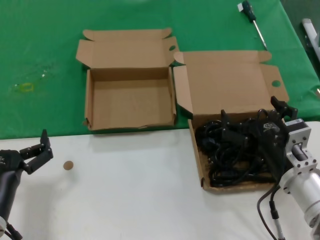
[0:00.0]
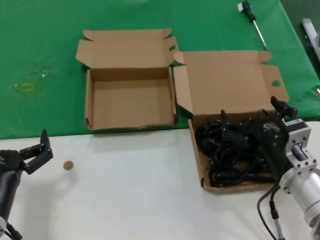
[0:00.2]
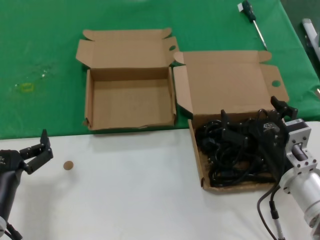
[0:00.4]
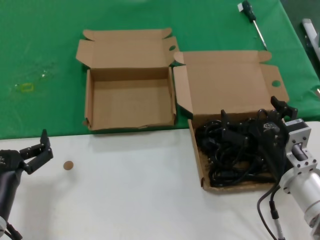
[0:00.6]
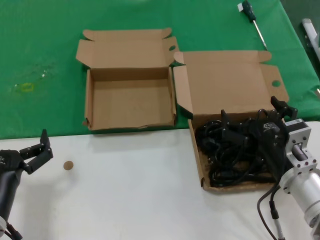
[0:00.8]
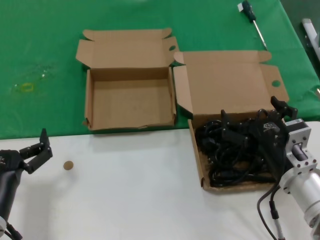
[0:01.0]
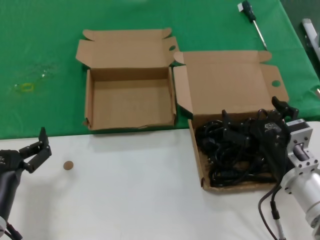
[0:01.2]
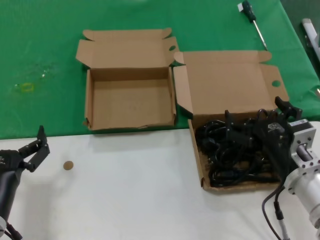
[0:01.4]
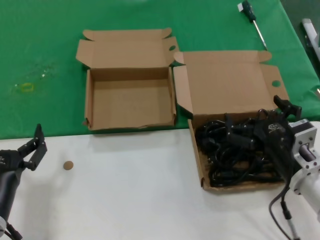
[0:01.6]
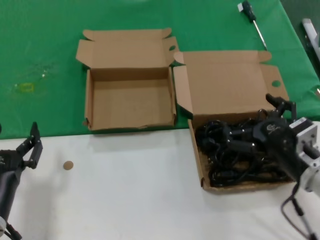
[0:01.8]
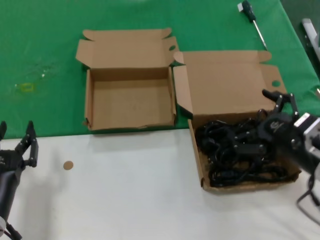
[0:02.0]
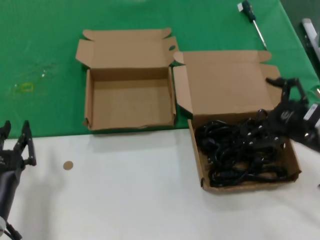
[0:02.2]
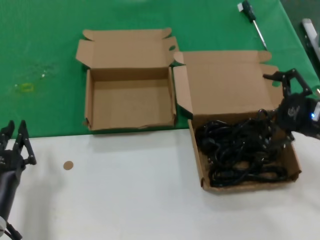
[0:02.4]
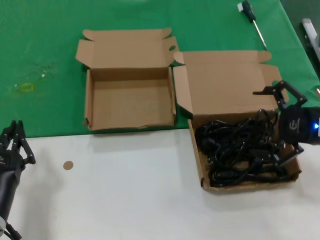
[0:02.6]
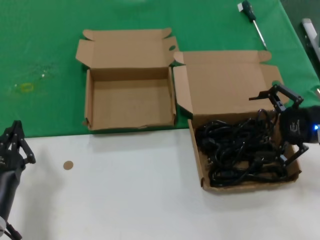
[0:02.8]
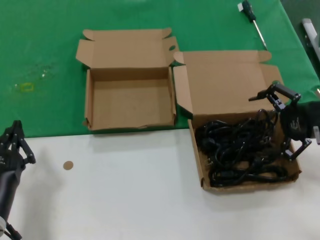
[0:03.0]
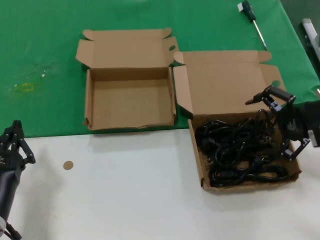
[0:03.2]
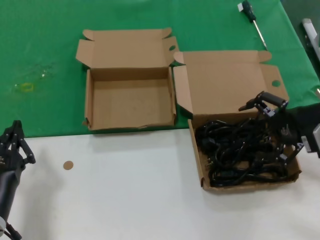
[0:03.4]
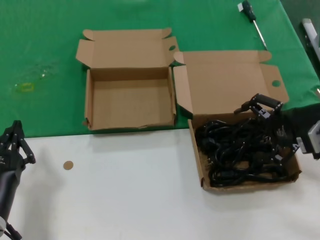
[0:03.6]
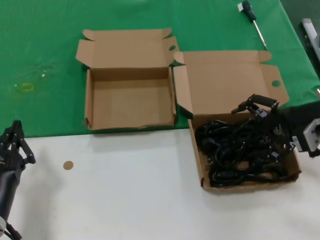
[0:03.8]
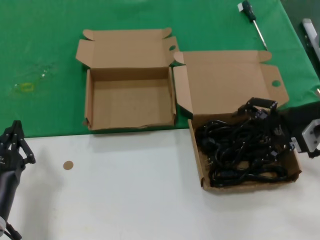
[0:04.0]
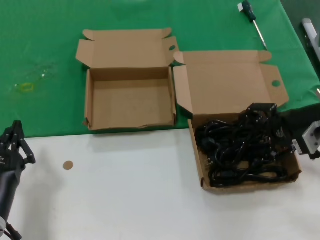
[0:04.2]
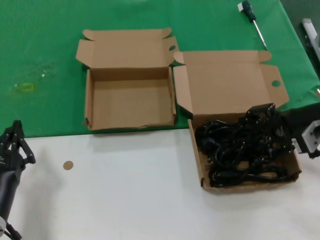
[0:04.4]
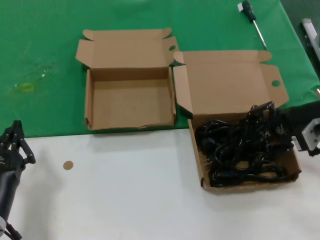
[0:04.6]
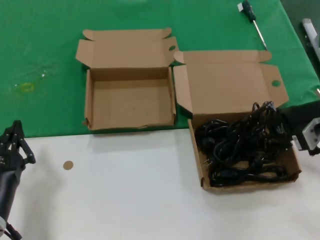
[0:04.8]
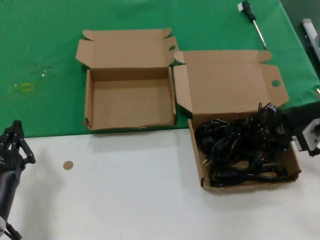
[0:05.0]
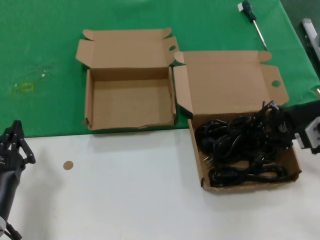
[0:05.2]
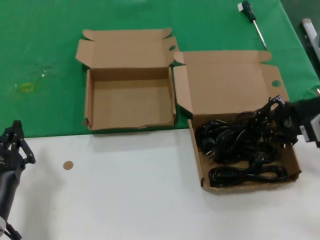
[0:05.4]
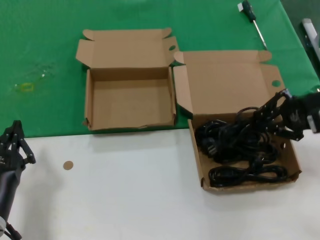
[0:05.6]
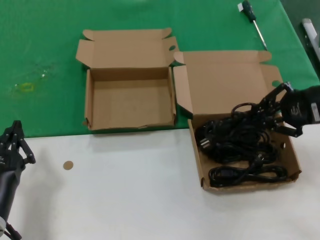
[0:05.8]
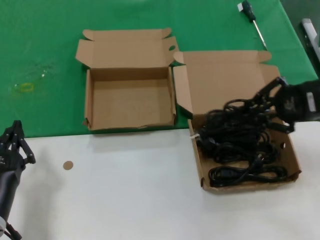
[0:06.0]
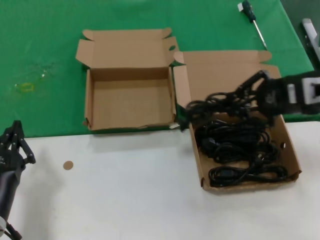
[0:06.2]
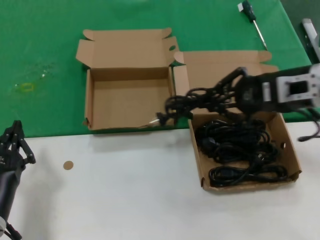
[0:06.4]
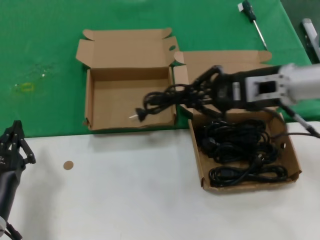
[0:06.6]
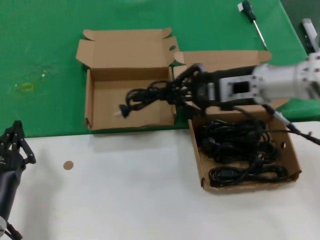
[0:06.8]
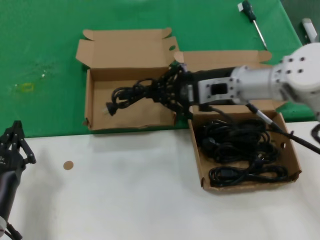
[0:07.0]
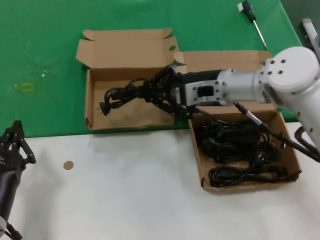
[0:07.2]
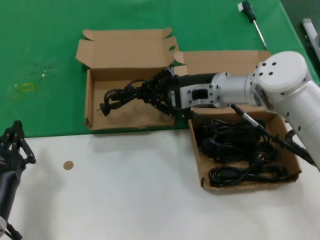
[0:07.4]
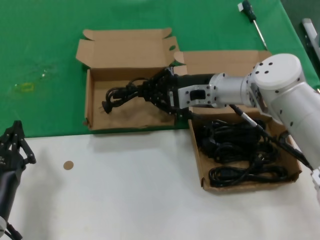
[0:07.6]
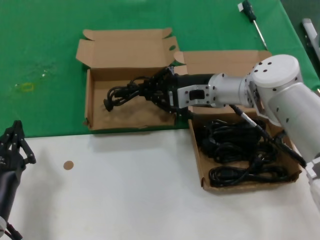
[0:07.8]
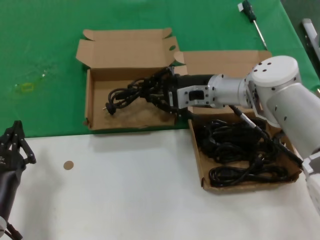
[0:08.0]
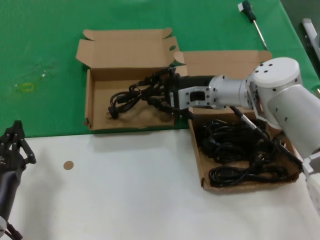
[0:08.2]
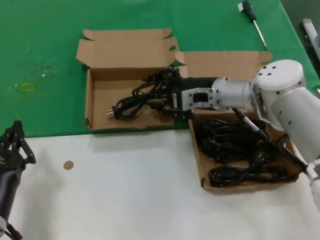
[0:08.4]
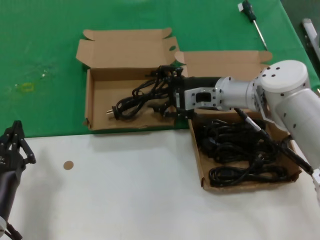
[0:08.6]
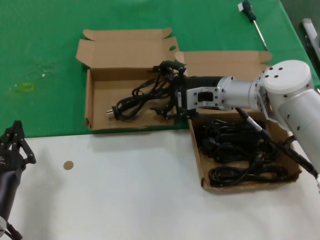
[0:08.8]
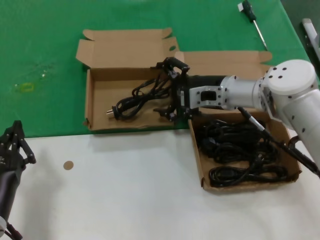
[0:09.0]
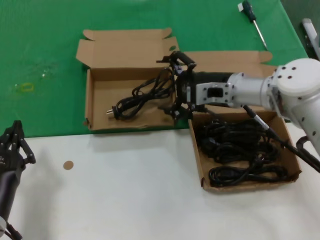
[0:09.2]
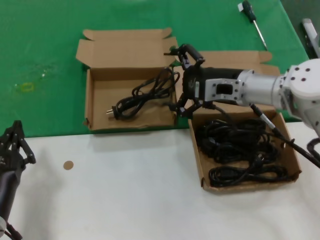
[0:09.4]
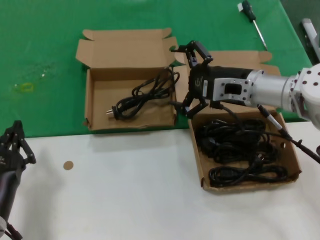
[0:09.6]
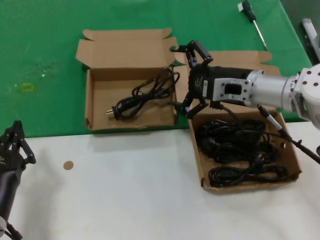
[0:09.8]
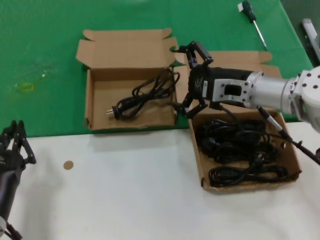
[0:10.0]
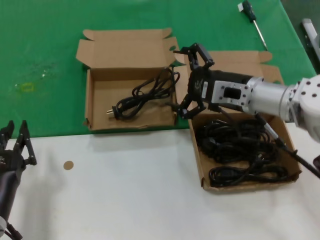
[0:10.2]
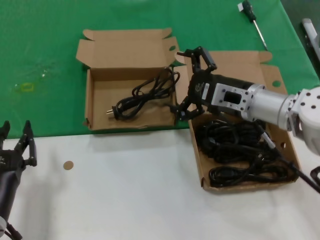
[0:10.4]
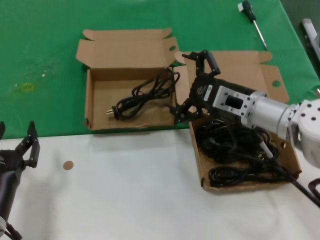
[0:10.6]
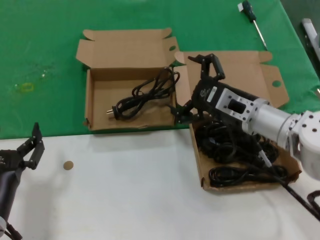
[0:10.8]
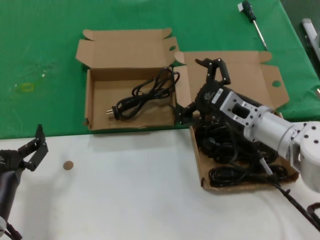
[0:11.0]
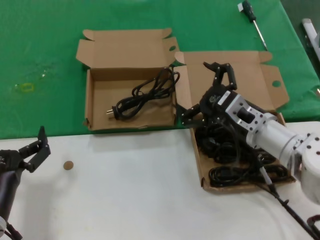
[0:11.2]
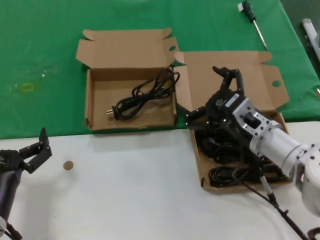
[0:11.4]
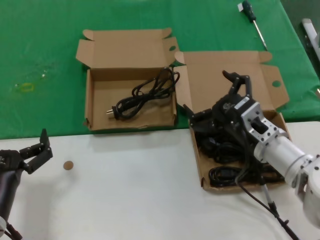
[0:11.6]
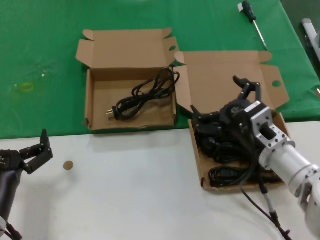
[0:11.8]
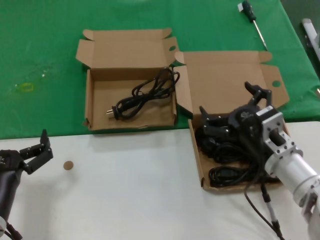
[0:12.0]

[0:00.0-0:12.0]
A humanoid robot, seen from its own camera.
Task of the whole recording: take the parts from the box containing them and put them into an empty box.
Step, 0:00.0 to 0:04.8: Grasp the data cable.
Step, 0:05.0 to 0:08.4: Place the data cable in the another box.
0:00.0 to 0:01.6: There are only small adjustments of the hands.
0:01.6 to 0:03.0: The right hand is displaced to the right, upward and forward by approximately 20 cm.
0:03.0 to 0:04.4: The right hand shifts by about 5 cm.
0:04.4 to 0:06.0: The right hand goes some 5 cm upward.
0:06.0 to 0:07.6: The right hand moves to the left, forward and downward, approximately 25 cm.
0:07.6 to 0:09.0: The hands move only a little.
0:09.0 to 0:10.4: The right hand moves backward, some 5 cm.
0:10.4 to 0:12.0: The right hand moves backward and downward, roughly 15 cm.

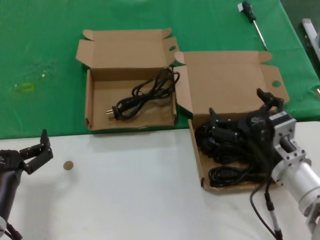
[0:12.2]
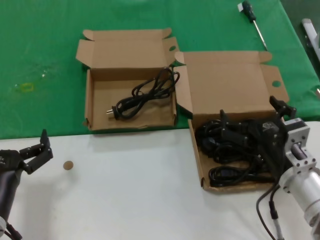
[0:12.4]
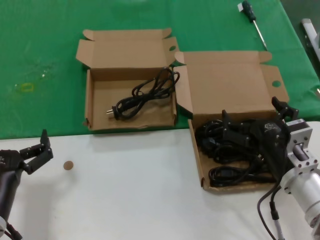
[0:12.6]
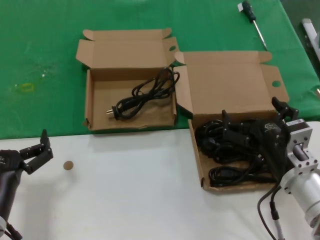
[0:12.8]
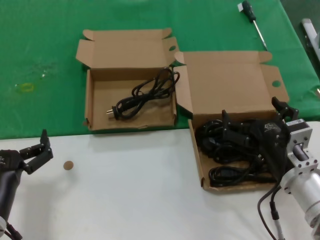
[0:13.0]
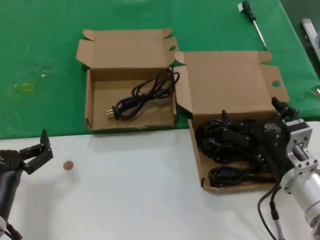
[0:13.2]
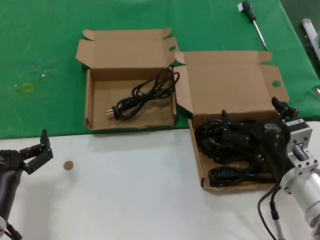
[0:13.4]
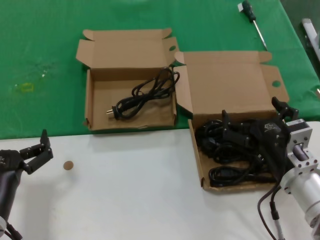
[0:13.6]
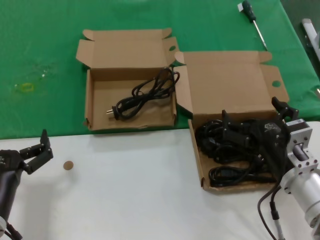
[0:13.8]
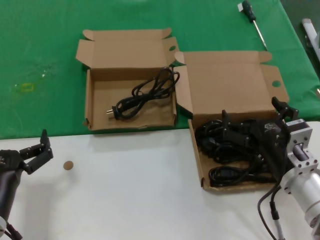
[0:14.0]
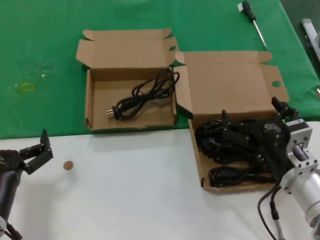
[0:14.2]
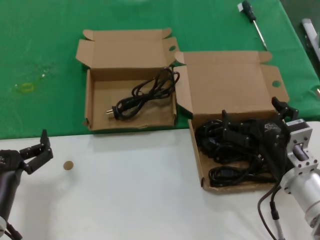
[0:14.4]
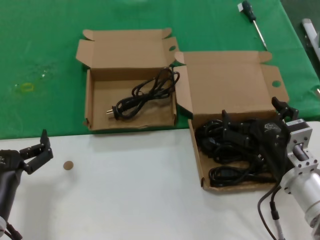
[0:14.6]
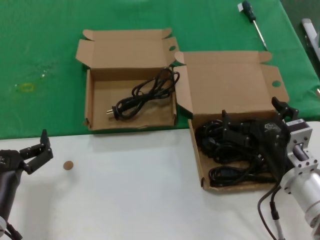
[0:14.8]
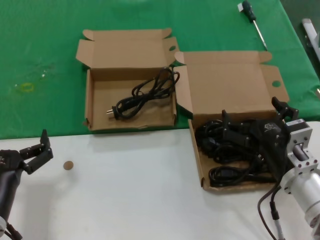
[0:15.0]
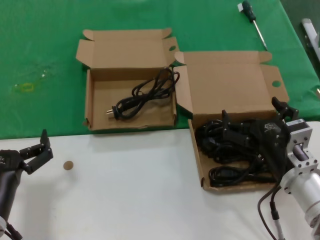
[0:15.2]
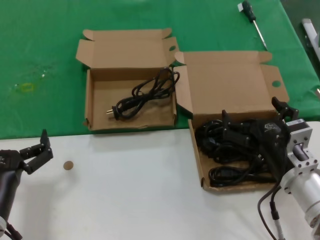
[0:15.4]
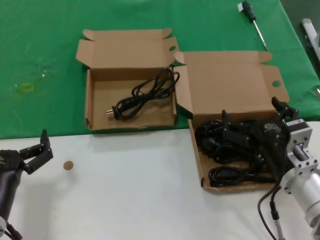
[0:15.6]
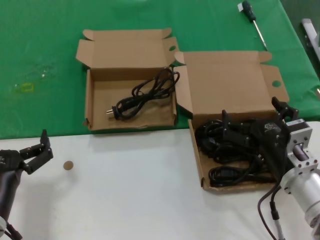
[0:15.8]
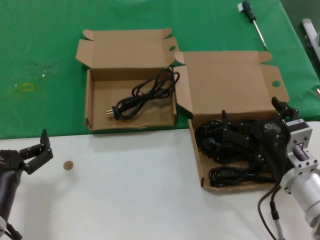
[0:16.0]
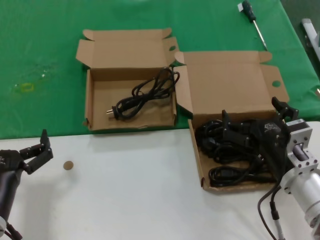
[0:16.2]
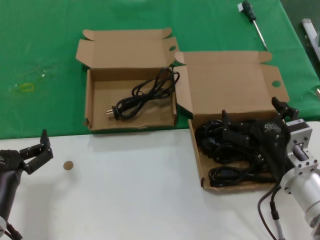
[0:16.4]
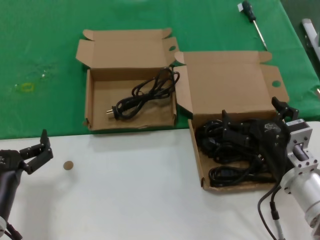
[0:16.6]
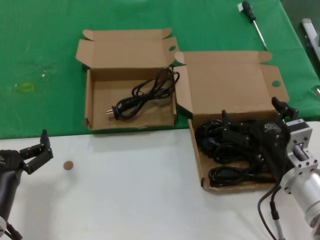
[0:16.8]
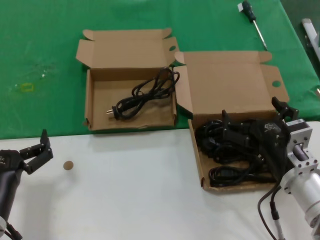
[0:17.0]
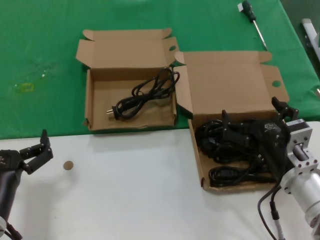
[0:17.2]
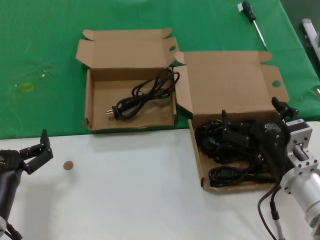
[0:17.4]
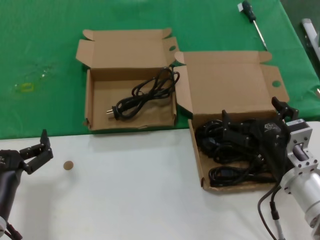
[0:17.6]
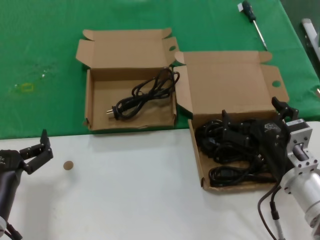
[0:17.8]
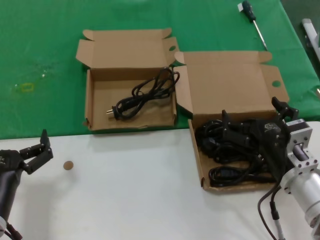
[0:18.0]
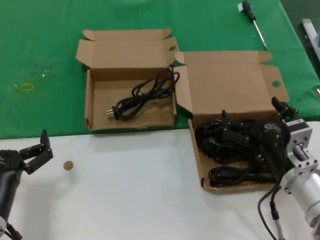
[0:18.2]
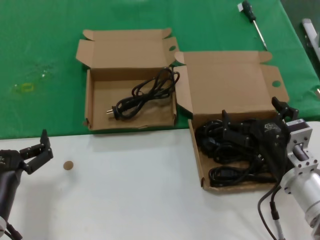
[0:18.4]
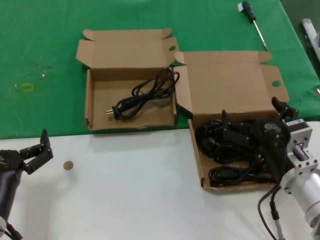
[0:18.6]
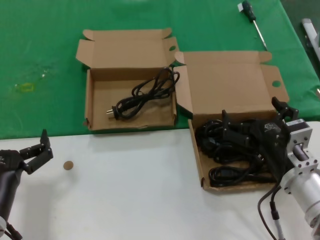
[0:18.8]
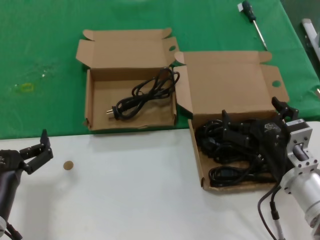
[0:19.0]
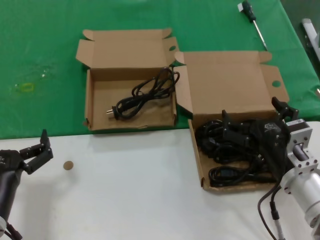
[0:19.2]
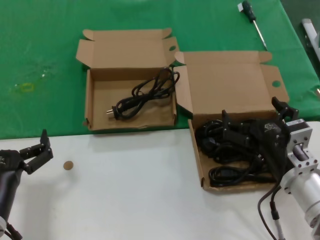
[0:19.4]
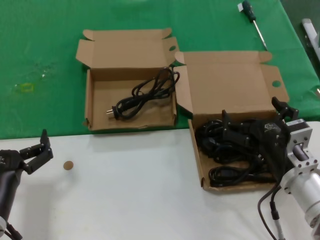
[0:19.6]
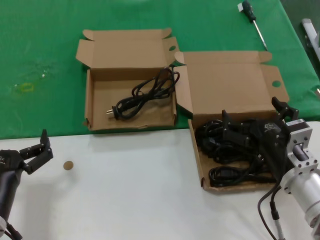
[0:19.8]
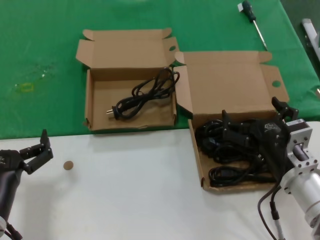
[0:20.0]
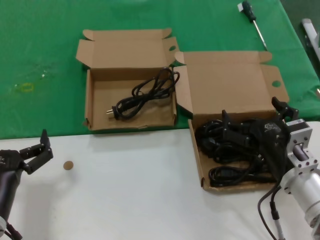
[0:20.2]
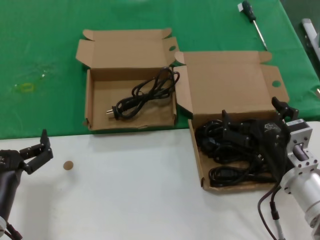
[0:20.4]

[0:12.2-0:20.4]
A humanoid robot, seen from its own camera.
Task of the whole recording: take the parts from the box containing them and put them into an empty box.
0:12.2 to 0:13.8: The hands make only small movements.
0:13.8 to 0:20.4: The two hands keep their place.

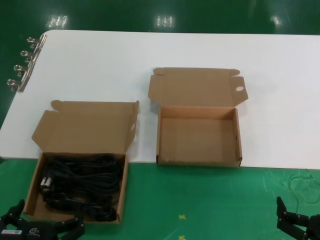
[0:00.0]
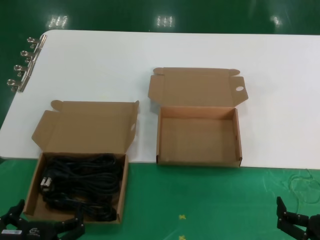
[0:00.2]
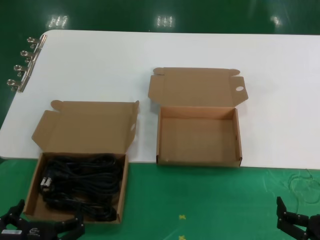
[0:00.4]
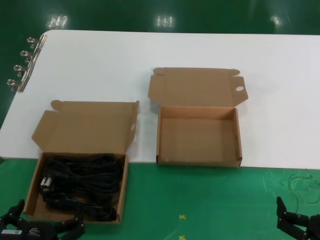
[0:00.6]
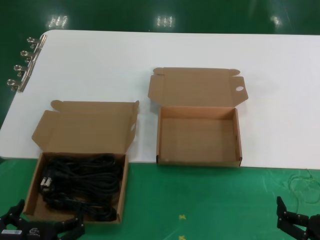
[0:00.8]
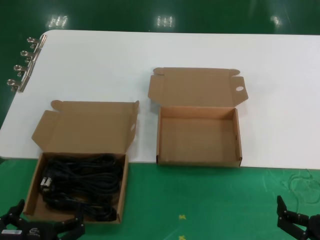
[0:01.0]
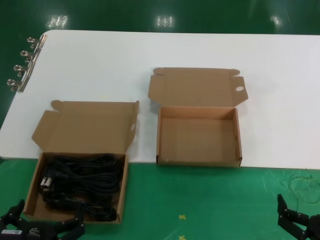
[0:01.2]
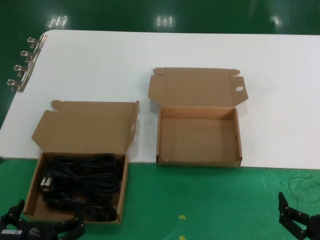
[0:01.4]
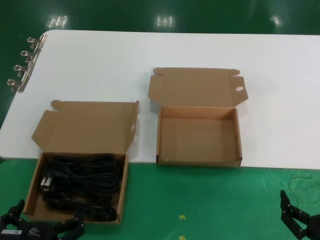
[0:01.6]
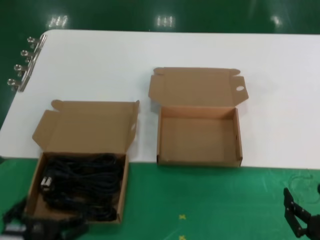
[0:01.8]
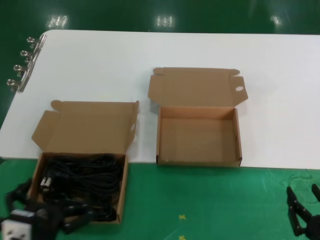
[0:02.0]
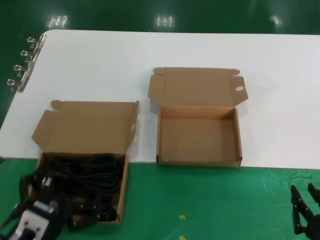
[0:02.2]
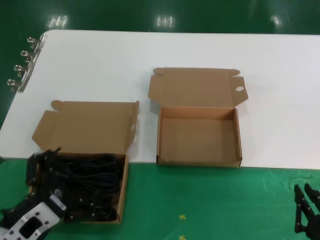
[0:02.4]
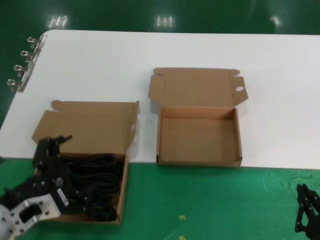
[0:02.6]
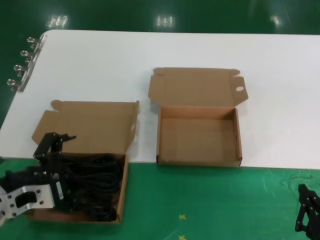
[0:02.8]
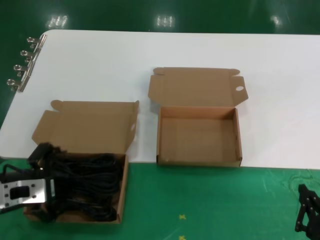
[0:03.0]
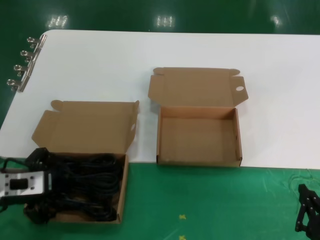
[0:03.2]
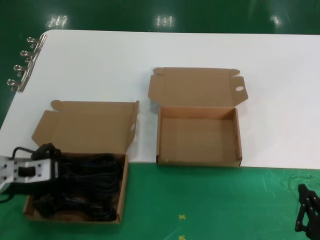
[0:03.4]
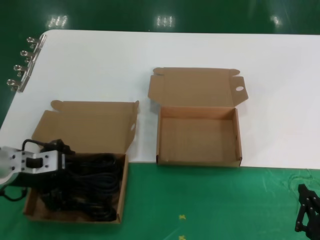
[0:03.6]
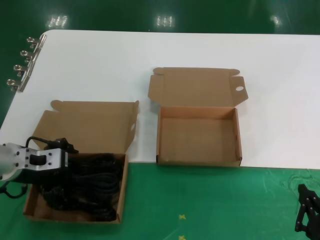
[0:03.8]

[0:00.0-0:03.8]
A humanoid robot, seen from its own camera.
Task of the whole recording: take the parts from the box containing them and put them into an empty box.
0:00.0 to 0:01.2: Neither hand changes place.
0:01.2 to 0:02.6: The left hand moves upward and forward, about 10 cm.
0:02.6 to 0:03.8: The left hand goes approximately 20 cm forward and upward.
